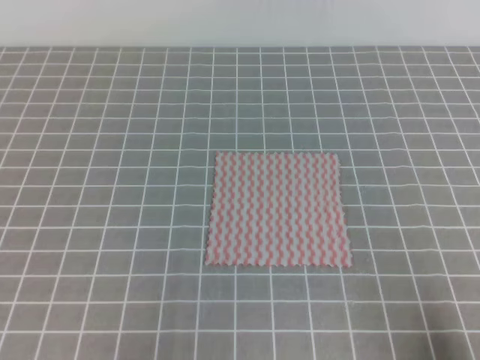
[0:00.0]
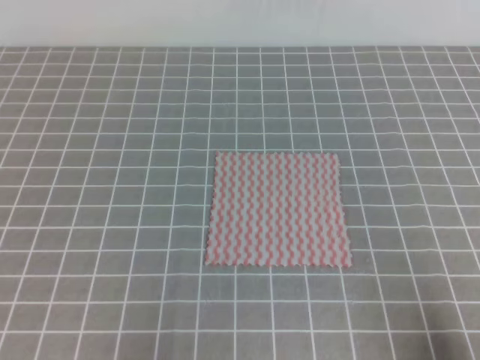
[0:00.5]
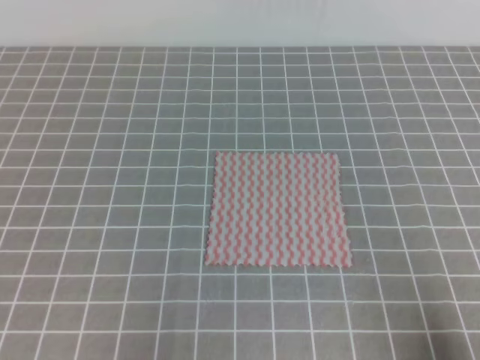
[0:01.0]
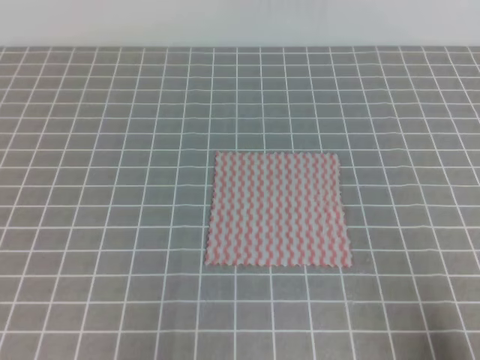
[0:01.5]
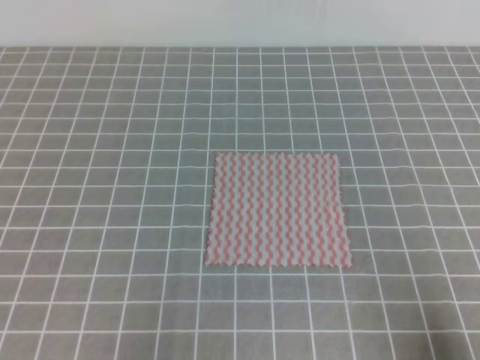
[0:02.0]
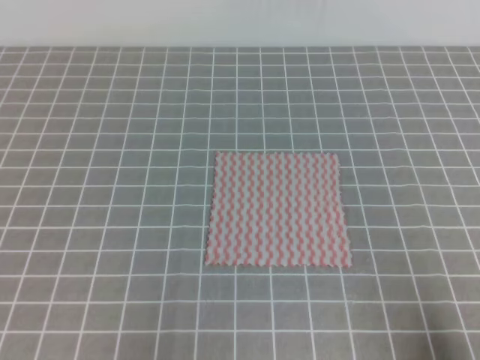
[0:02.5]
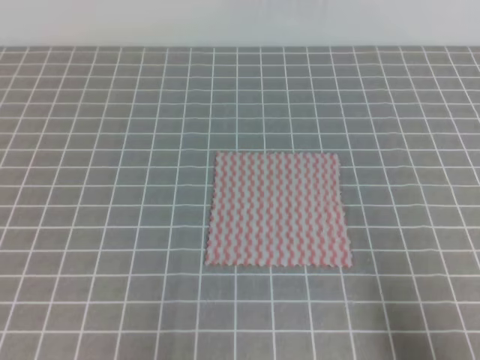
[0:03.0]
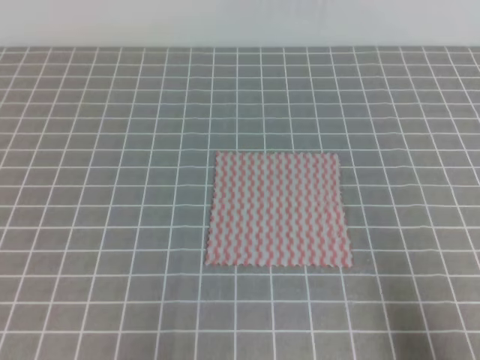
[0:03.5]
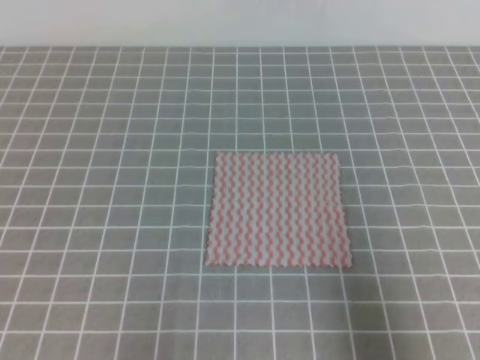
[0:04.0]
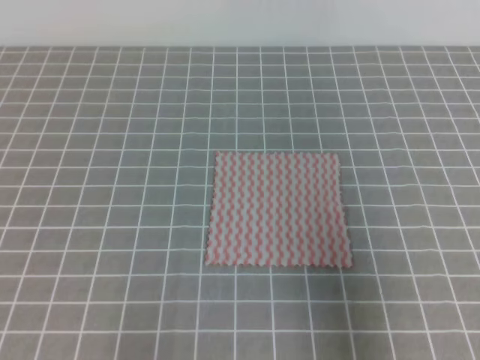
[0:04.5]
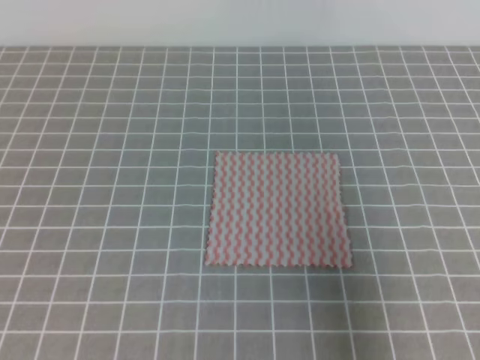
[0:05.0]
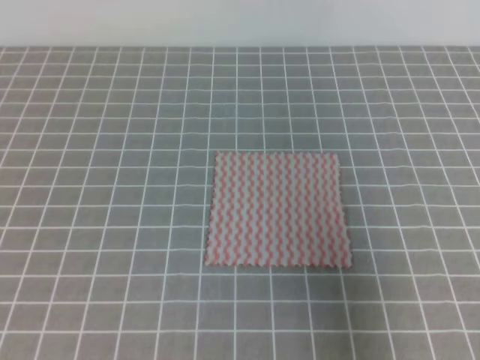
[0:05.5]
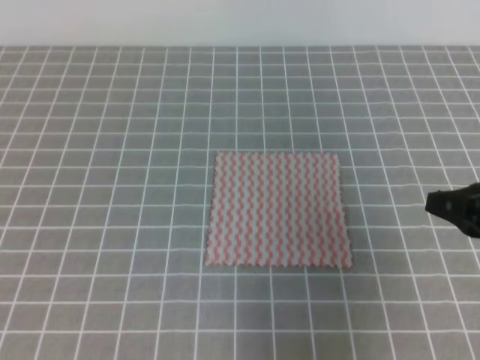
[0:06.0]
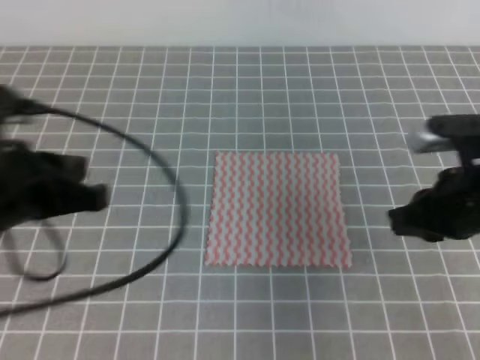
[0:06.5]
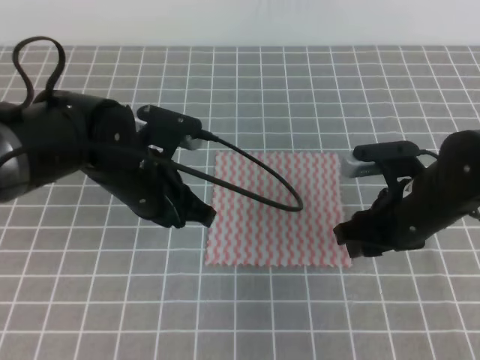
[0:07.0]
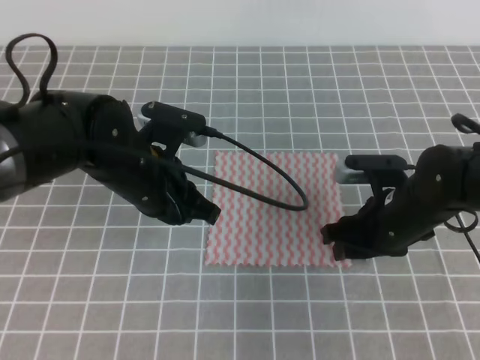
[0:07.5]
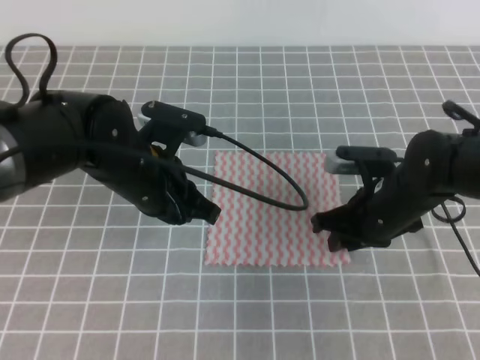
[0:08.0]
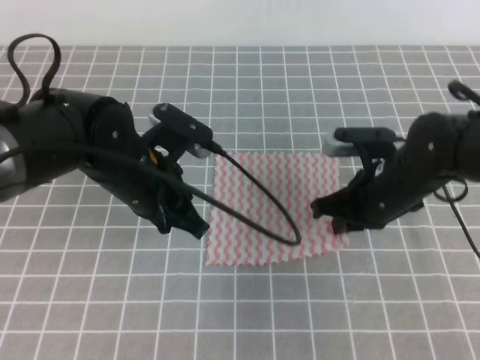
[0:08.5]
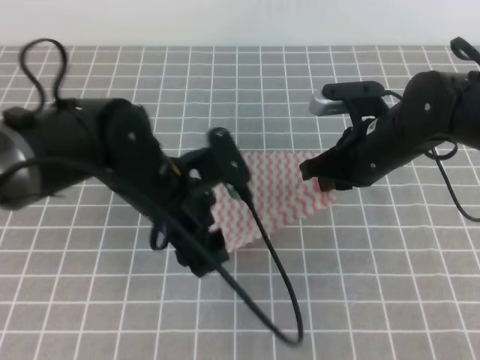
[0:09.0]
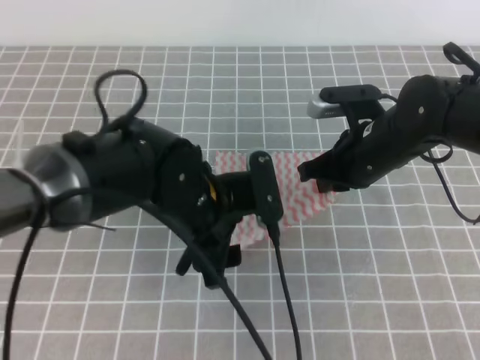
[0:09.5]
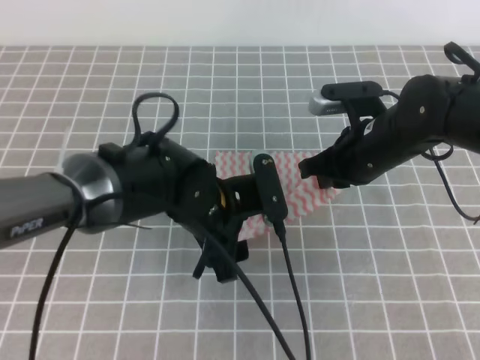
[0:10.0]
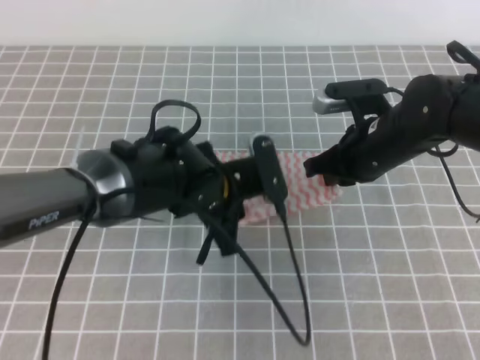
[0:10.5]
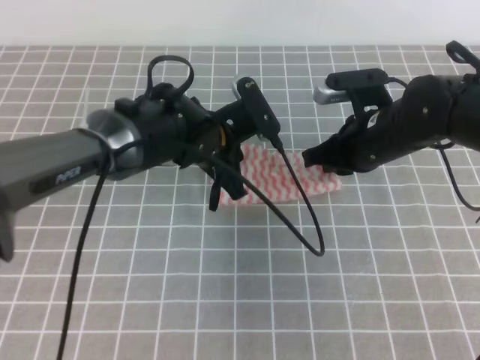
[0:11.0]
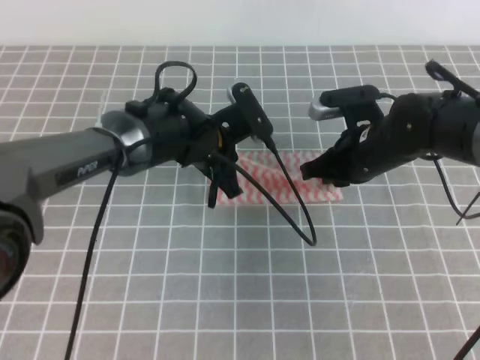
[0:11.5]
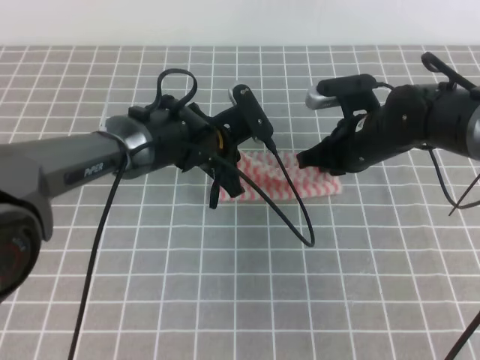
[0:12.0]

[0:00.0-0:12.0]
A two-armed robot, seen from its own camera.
Step, 0:00.0 to 0:08.0: Fold the towel upwards with the both gripper.
Step, 0:08.5 to 0:10.5: Fold the towel from right to left with the right gripper.
0:00.0 to 0:02.0: Neither gripper changes place.
0:02.0 to 0:04.0: The right gripper is displaced upward by roughly 10 cm.
0:04.0 to 0:06.0: The right gripper heads forward, covering approximately 15 cm, while the left gripper shifts about 10 cm upward.
0:06.0 to 0:08.0: The right gripper travels to the left, forward and downward by about 15 cm, and opens. Meanwhile the left gripper goes approximately 30 cm forward and to the right.
0:08.0 to 0:10.0: The right gripper moves upward, roughly 5 cm, and closes up. Meanwhile the left gripper goes about 5 cm to the right, and opens its fingers.
0:10.0 to 0:12.0: The left gripper shifts some 10 cm forward, and closes its fingers.

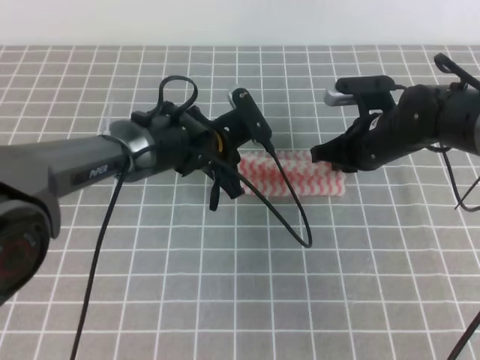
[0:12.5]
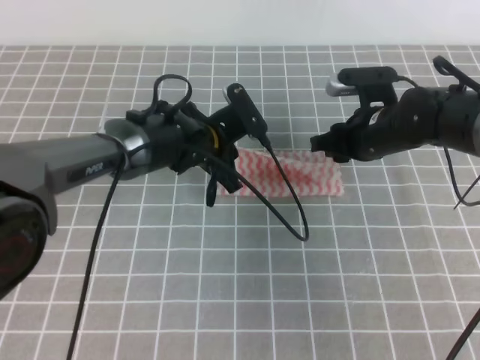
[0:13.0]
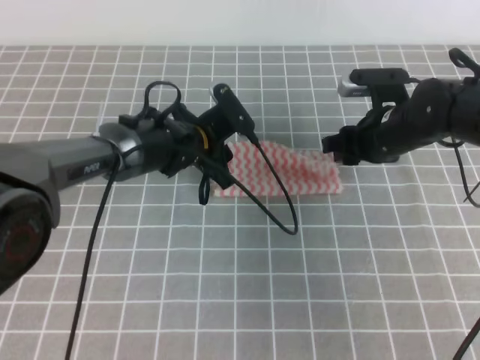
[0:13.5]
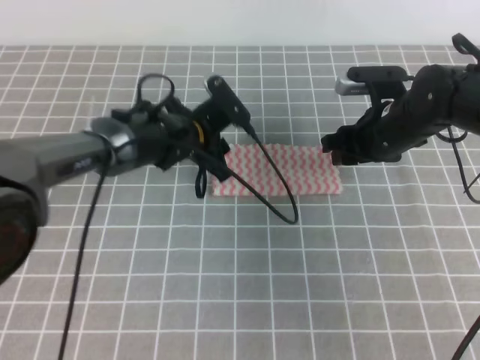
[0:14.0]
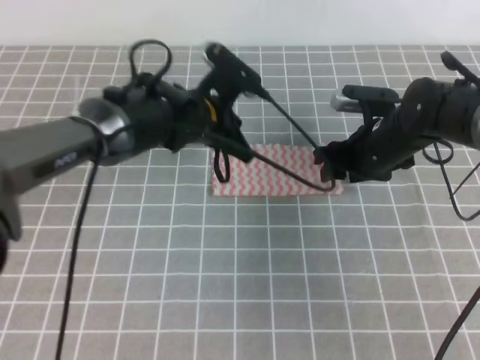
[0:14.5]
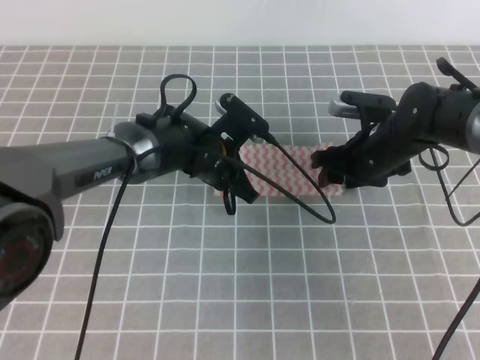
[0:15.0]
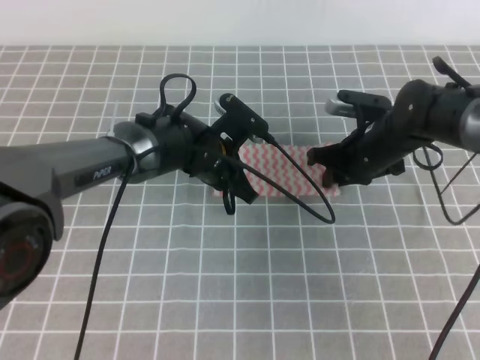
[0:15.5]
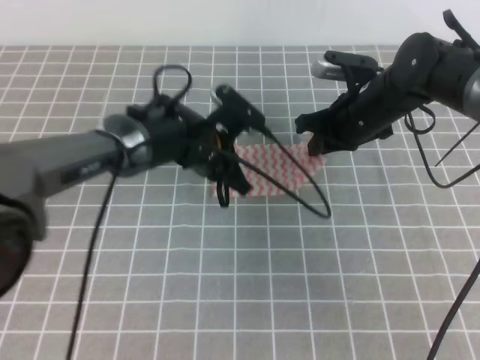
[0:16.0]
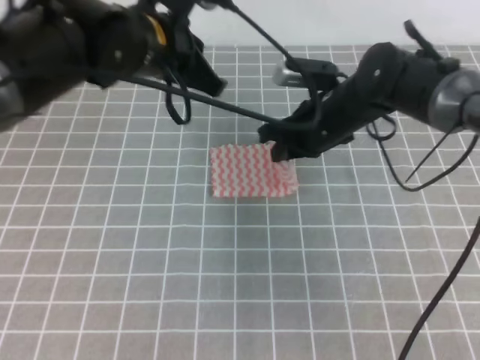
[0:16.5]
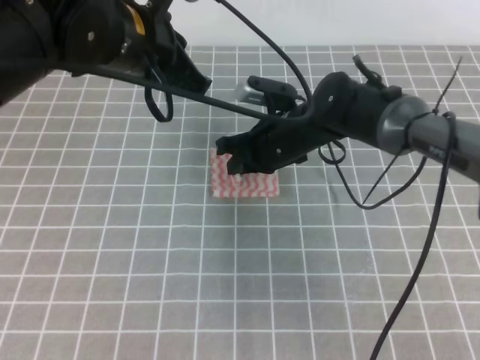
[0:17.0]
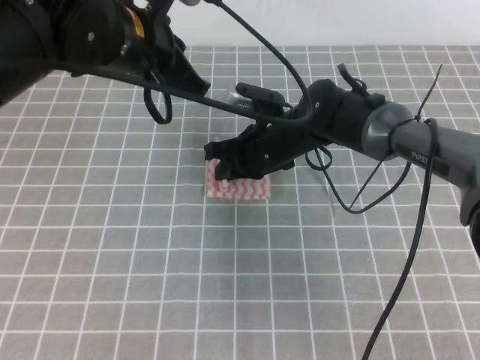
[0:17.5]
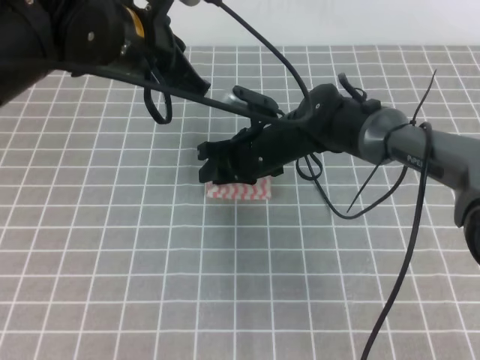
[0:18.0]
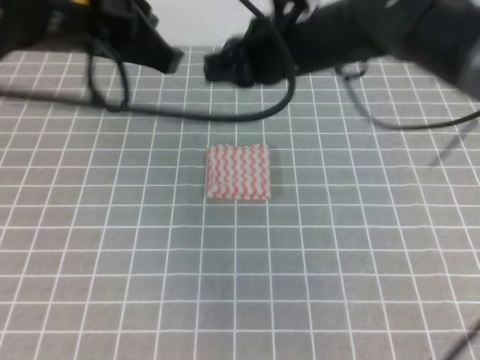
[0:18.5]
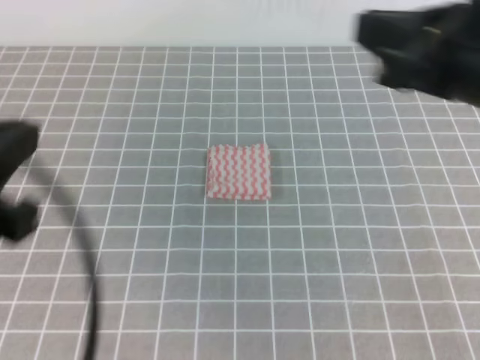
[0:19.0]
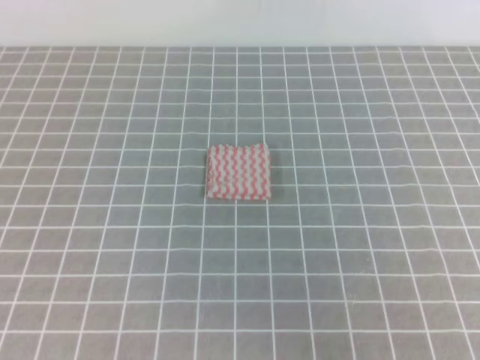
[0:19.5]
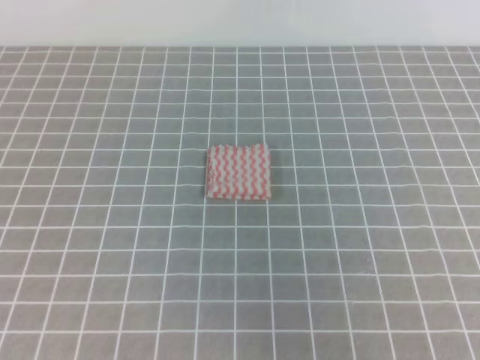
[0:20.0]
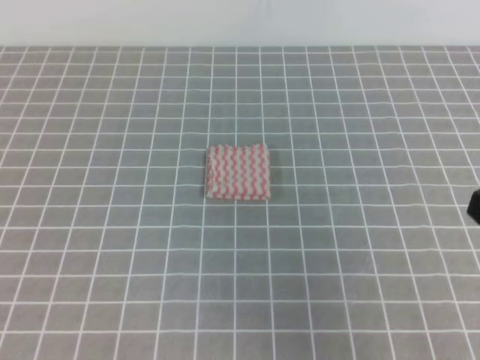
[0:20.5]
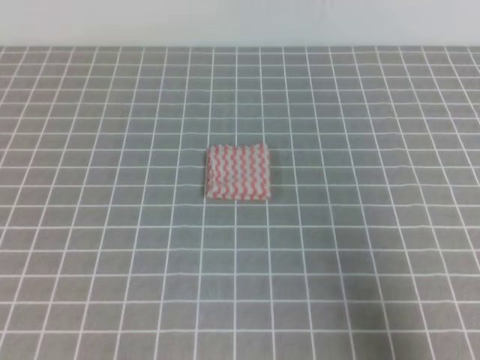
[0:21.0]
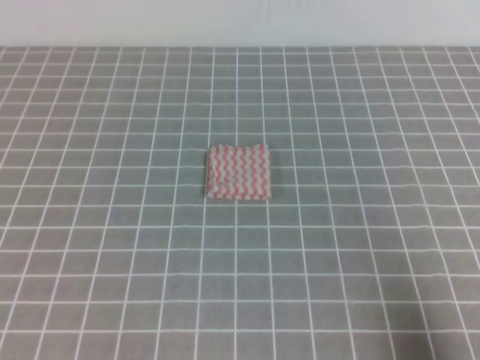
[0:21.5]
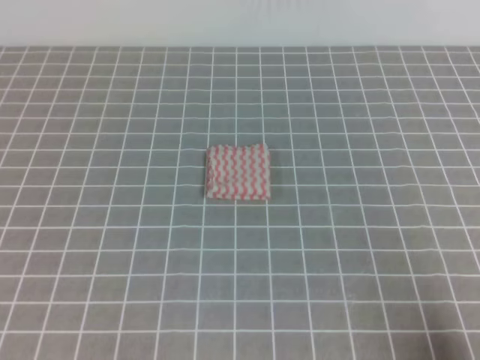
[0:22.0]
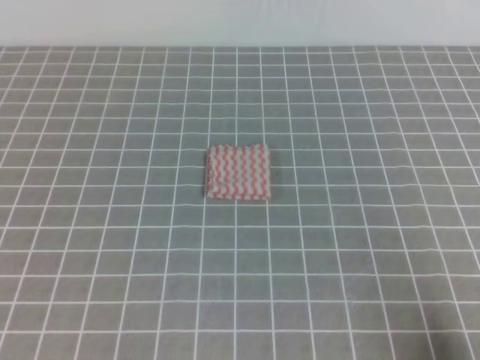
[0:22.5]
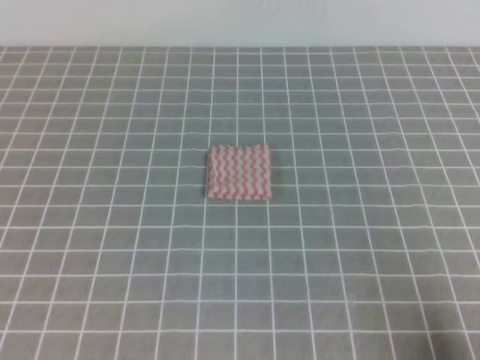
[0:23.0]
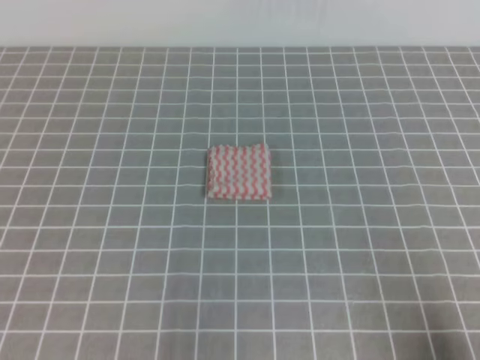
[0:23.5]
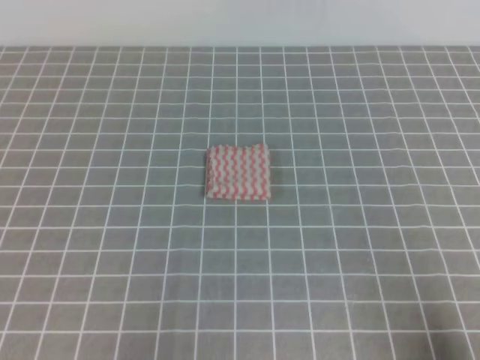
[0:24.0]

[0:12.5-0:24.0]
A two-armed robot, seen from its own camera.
0:12.5 to 0:14.5: The left gripper opens, then closes once more, while the right gripper opens its fingers.
0:14.5 to 0:16.5: The left gripper travels upward by roughly 10 cm, while the right gripper heads to the left, covering some 5 cm, and closes.
0:16.5 to 0:18.5: The right gripper moves upward, about 10 cm, and opens and closes again, while the left gripper is displaced backward and upward by about 10 cm.
0:18.5 to 0:20.0: The left gripper goes some 30 cm backward, to the left and downward. The right gripper goes some 35 cm backward and to the right.
0:20.0 to 0:22.0: The right gripper shifts approximately 20 cm downward.
